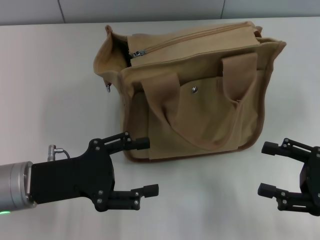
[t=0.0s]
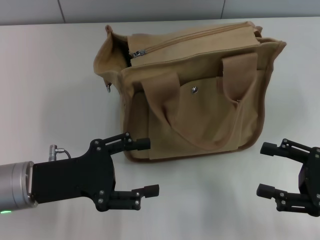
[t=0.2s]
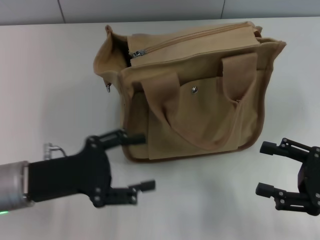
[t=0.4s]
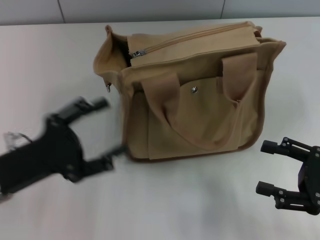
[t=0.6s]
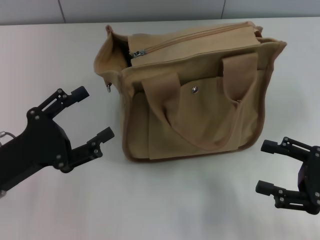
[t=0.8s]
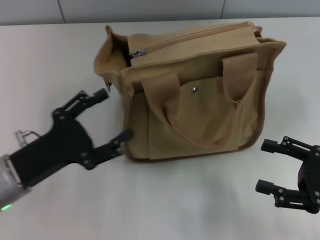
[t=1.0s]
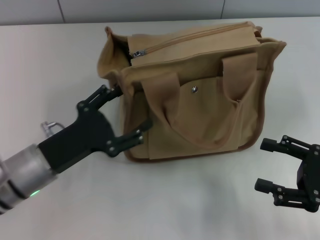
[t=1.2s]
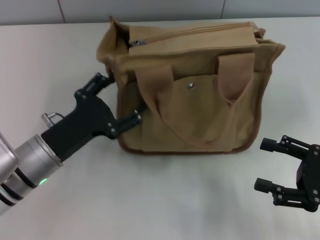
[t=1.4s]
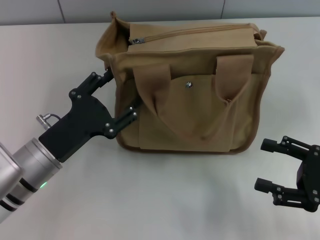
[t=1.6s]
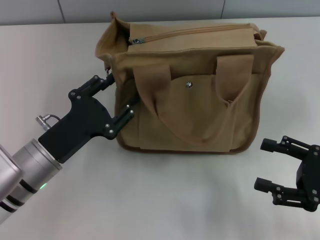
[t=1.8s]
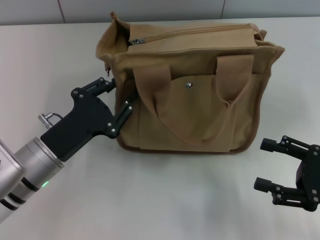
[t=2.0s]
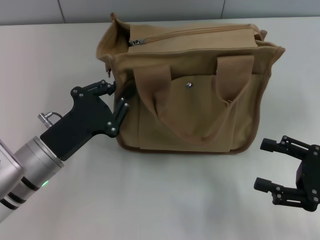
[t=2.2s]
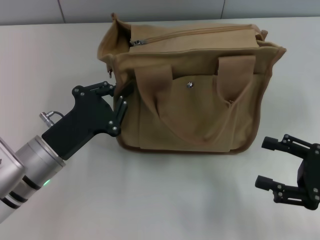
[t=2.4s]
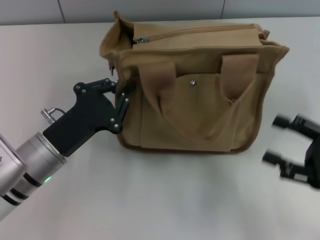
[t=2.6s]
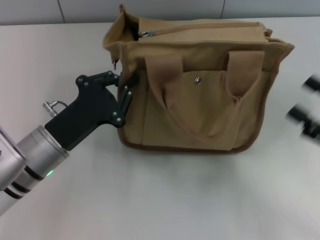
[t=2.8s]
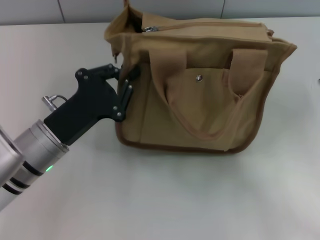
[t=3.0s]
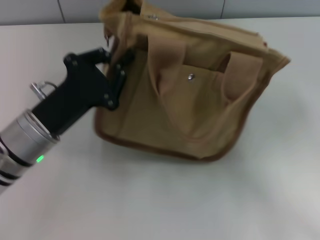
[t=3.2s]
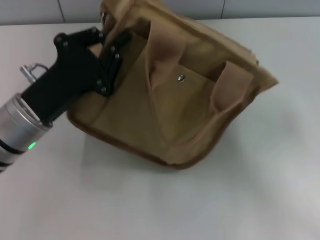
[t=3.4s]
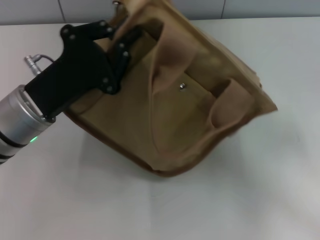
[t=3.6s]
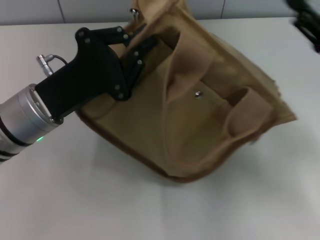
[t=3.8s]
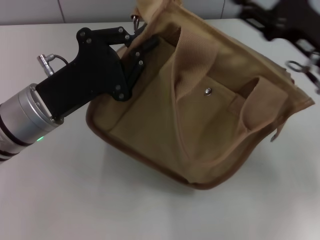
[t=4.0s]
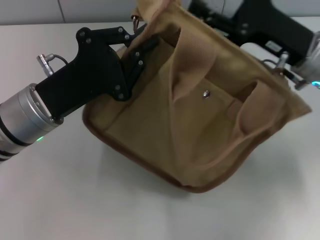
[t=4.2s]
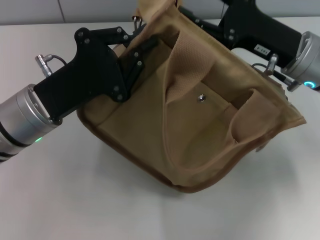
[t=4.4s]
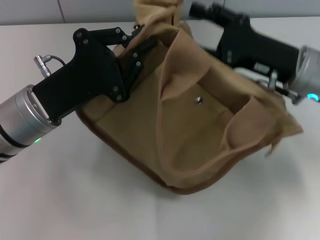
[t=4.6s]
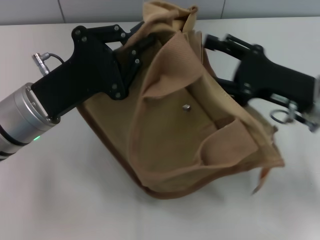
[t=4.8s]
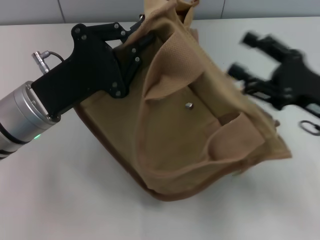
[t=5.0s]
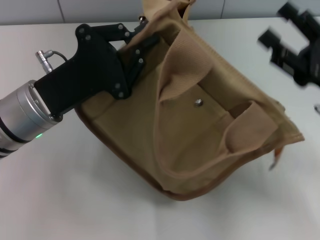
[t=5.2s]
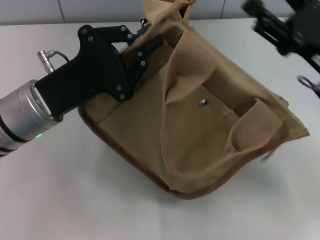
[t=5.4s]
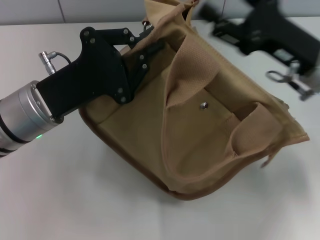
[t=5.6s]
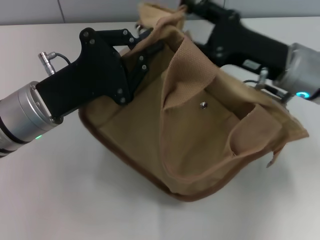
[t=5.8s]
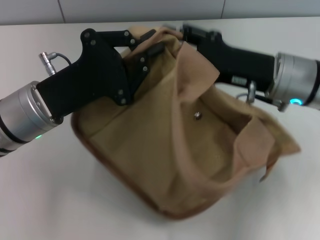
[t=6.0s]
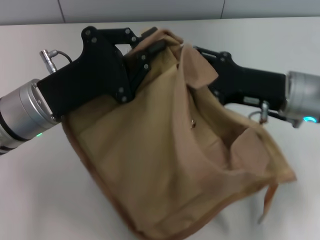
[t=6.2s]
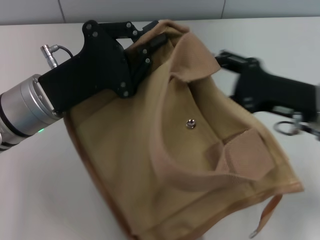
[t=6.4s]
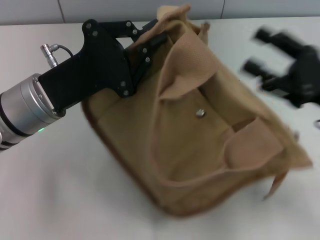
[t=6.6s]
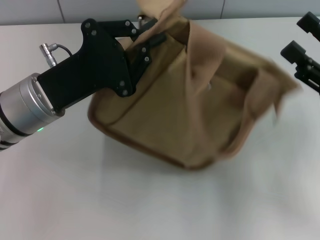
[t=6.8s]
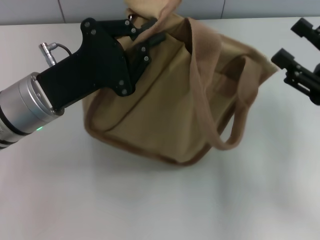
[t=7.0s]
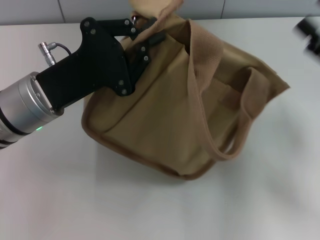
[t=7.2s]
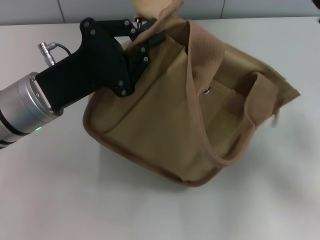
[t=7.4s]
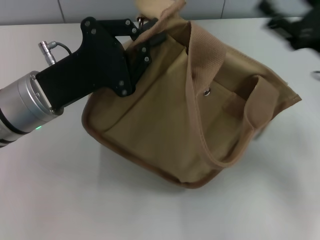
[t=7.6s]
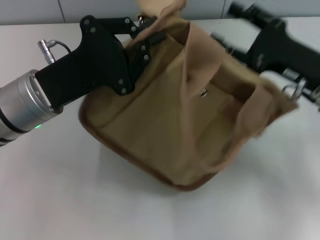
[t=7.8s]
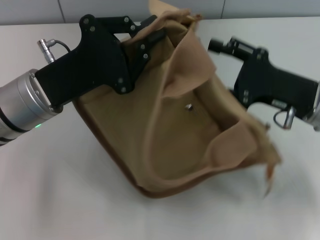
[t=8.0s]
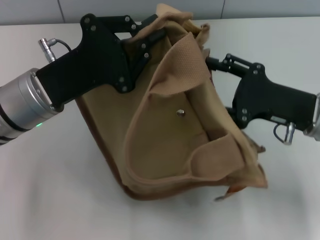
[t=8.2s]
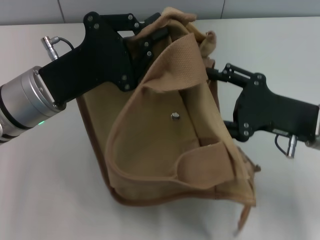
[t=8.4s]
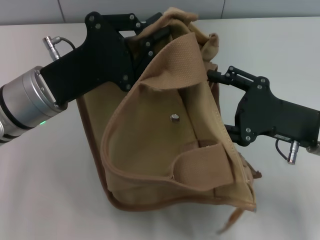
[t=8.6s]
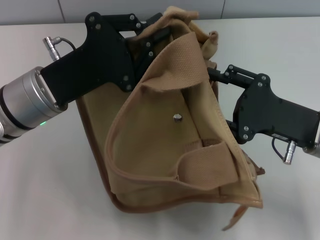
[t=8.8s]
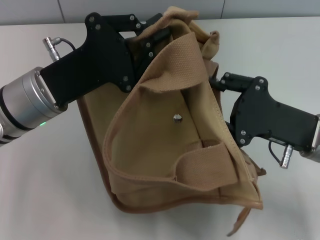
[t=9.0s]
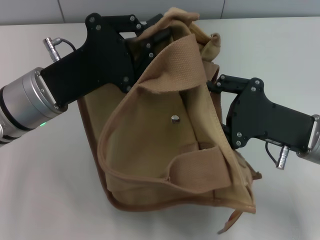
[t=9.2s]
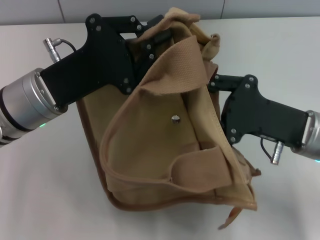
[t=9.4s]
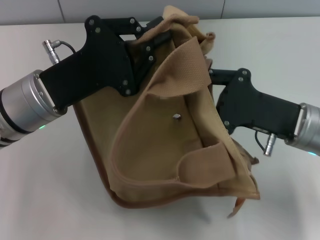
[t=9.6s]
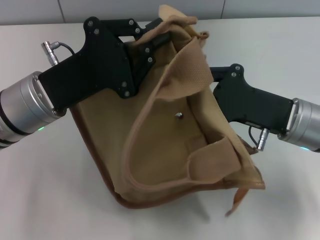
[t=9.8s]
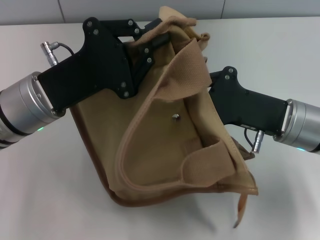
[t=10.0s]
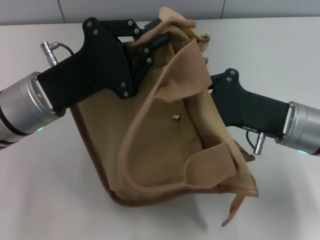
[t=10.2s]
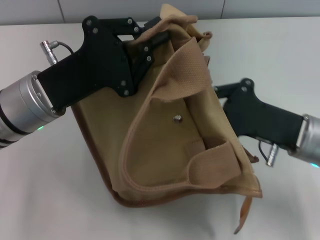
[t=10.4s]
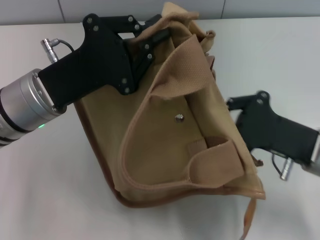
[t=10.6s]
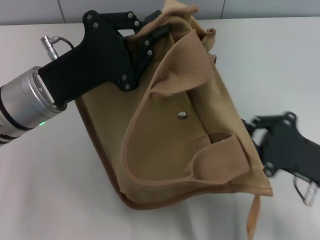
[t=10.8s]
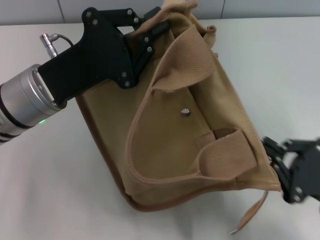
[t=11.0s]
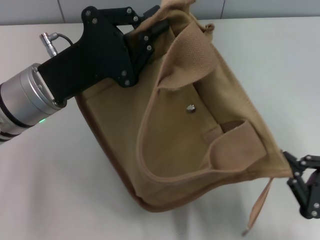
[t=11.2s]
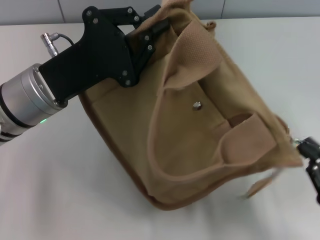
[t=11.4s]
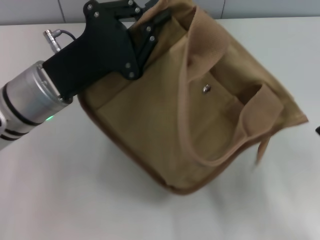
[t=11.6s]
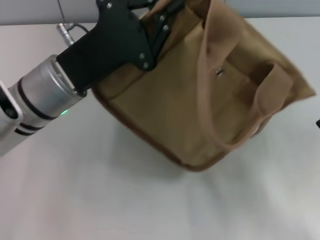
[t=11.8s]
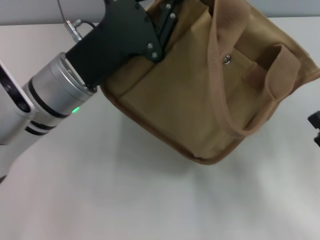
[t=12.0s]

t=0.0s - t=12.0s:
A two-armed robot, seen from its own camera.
Step, t=0.0s - t=11.4s: Pull open the zipper with your right hand.
t=1.6s - t=3.0s: The left gripper closes its fingers.
t=3.0s - t=4.4s: The left gripper shifts some 5 cm upward. The right gripper moves forward and to the left, about 20 cm.
t=4.4s - t=6.0s: The right gripper moves approximately 5 cm to the right and comes back.
t=6.0s - t=7.6s: The right gripper travels to the right by some 10 cm.
t=7.6s - t=9.0s: The right gripper moves backward, some 5 cm.
t=9.0s - t=10.4s: The right gripper closes its fingers.
t=10.4s - t=12.0s: The right gripper goes roughly 15 cm backward and to the right, and opens.

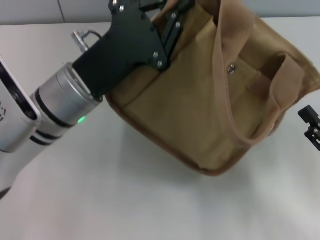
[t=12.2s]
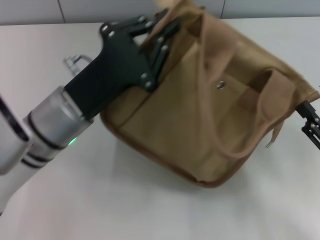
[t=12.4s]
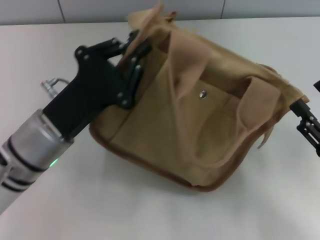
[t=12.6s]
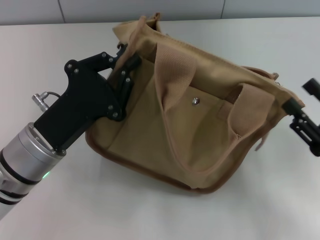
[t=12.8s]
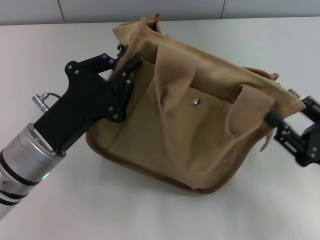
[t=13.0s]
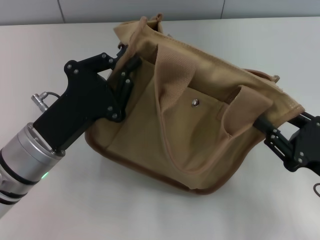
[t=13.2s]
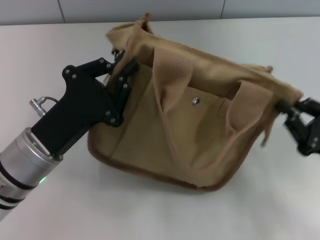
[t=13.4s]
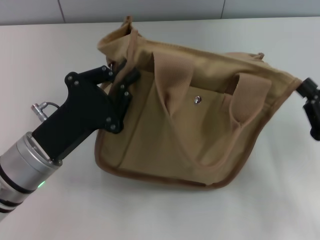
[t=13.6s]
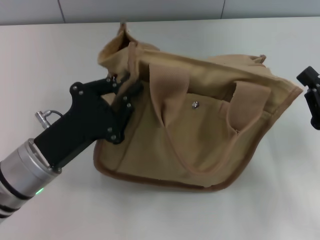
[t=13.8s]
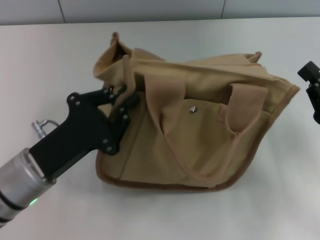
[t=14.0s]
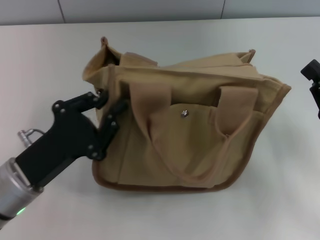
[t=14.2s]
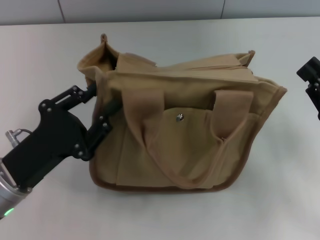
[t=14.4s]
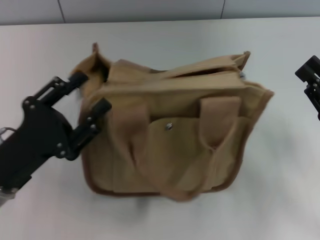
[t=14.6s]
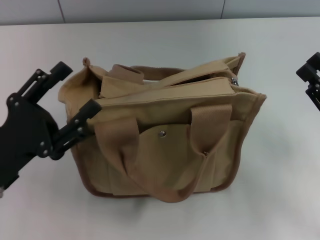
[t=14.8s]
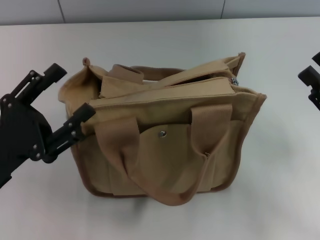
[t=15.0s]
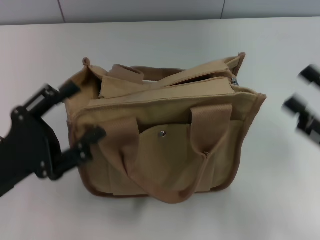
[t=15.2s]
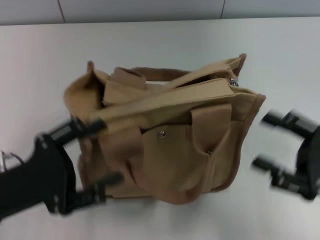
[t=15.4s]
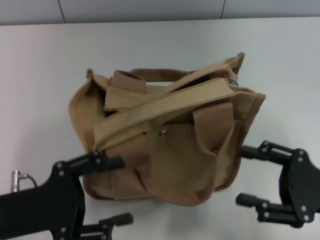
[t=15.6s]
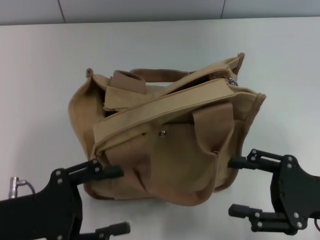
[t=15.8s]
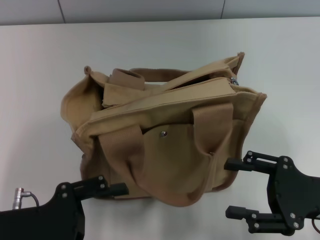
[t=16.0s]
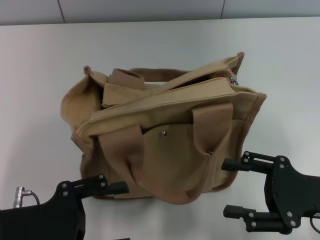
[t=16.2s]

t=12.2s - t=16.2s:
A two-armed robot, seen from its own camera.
Step, t=12.2s - t=14.6s: Grab the bag with your left hand.
t=12.2s - t=13.6s: The left gripper shifts some 10 cm backward and to the left. The right gripper closes.
t=13.6s - t=14.8s: The left gripper travels to the left by about 5 cm, and opens up.
t=14.8s - t=16.2s: The right gripper opens up, while the left gripper opens.

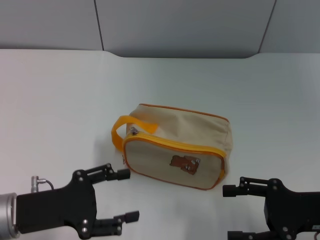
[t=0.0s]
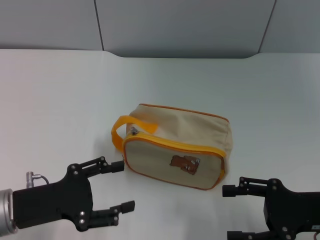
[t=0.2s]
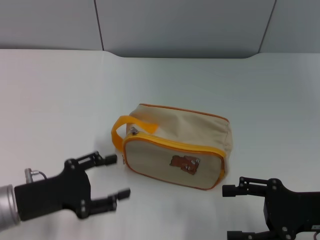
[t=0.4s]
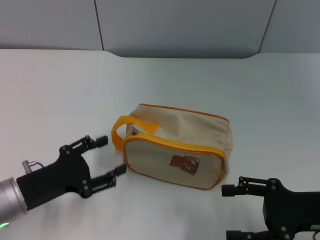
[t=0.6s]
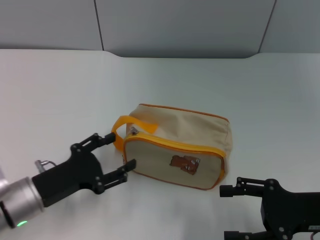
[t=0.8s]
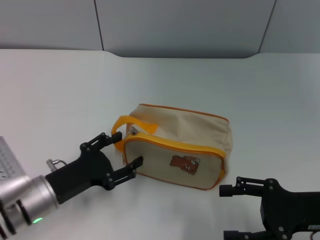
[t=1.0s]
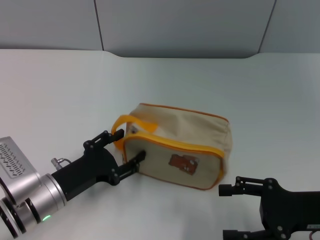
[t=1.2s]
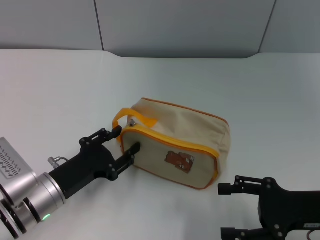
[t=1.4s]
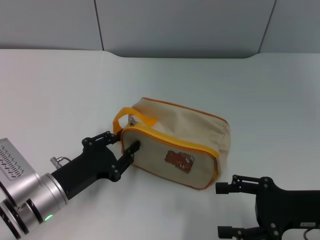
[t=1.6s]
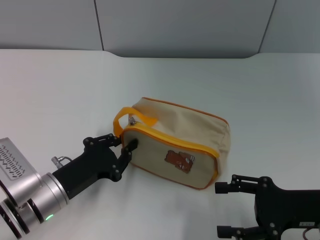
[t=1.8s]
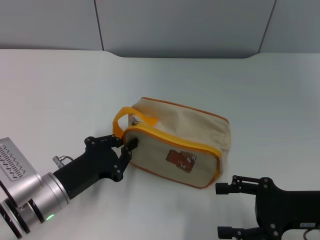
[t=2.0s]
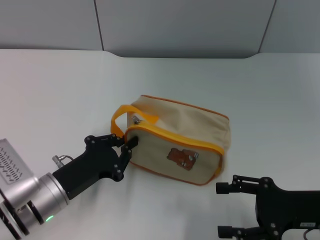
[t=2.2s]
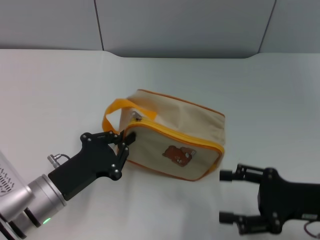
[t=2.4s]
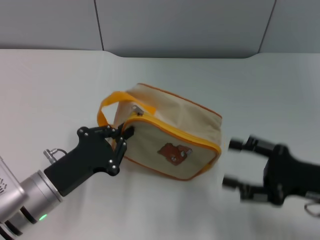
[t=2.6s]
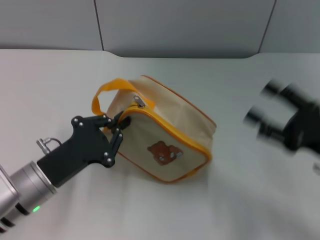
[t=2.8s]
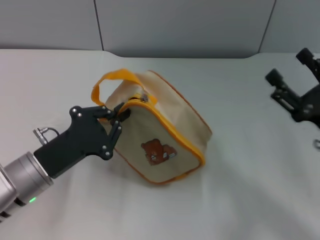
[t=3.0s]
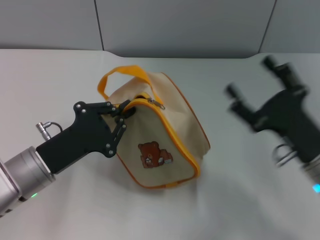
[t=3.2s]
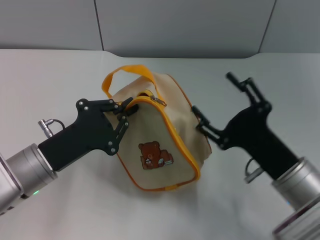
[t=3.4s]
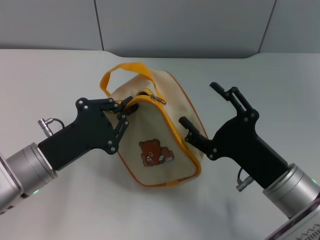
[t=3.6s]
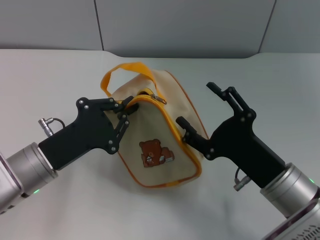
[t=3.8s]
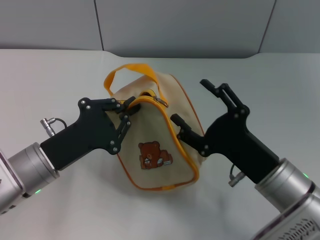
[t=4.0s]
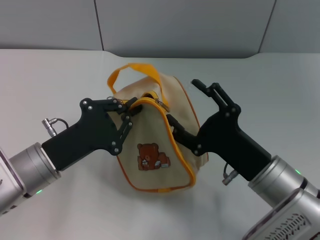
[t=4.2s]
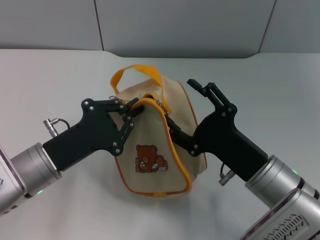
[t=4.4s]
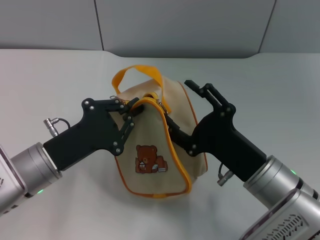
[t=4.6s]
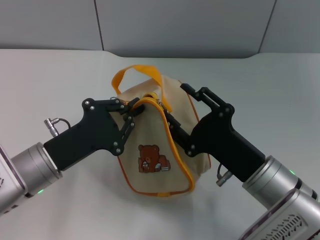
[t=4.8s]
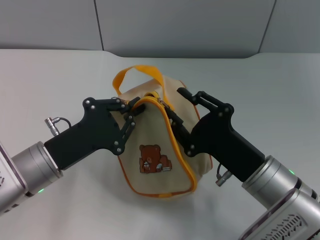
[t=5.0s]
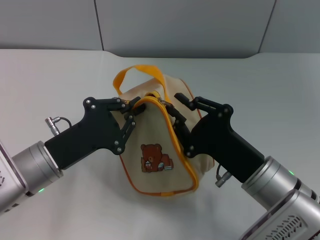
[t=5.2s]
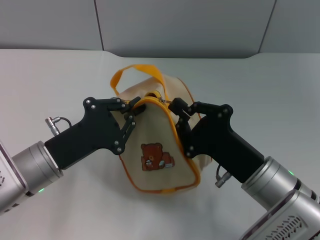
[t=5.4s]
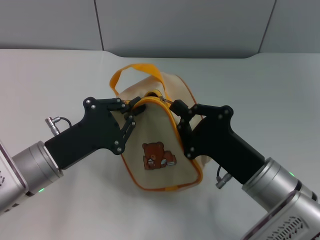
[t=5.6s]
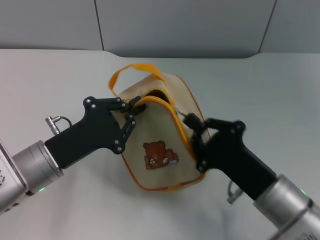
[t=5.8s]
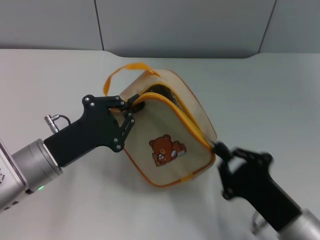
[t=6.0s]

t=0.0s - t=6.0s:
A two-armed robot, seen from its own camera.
Step, t=0.0s - t=2.6s: Pick up the bag with left gripper.
t=0.0s - t=1.6s: The left gripper travels downward by about 5 cm.
t=1.6s - t=3.0s: The left gripper closes.
t=3.0s - t=4.4s: The right gripper heads to the left, covering about 10 cm.
t=4.4s - t=6.0s: The right gripper heads backward, covering approximately 5 cm, and closes its fingers.
